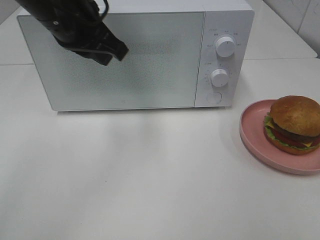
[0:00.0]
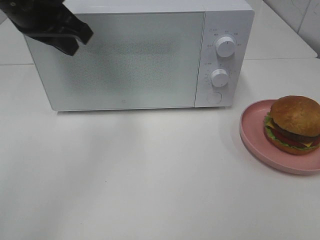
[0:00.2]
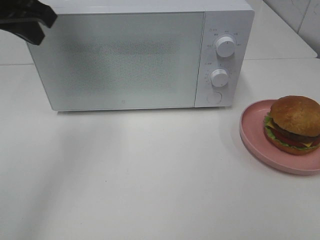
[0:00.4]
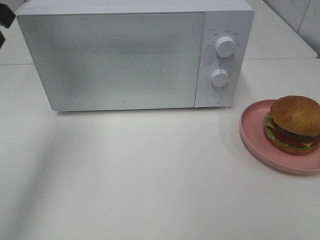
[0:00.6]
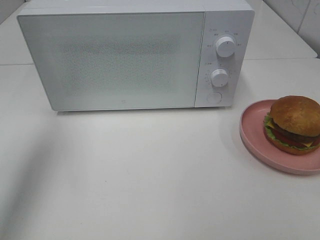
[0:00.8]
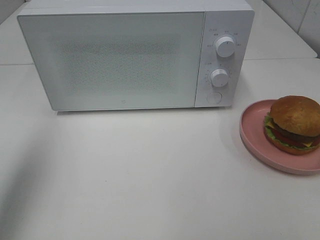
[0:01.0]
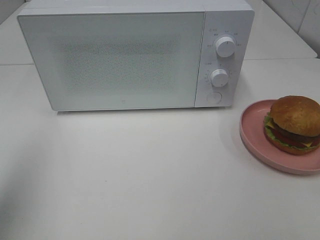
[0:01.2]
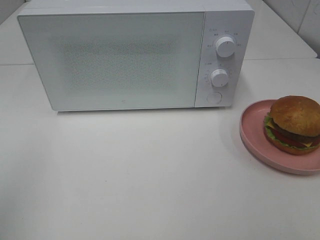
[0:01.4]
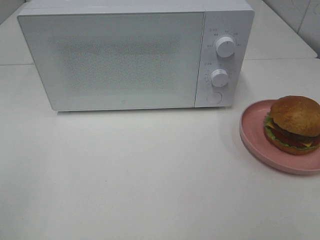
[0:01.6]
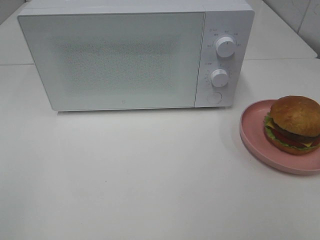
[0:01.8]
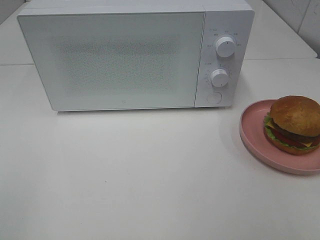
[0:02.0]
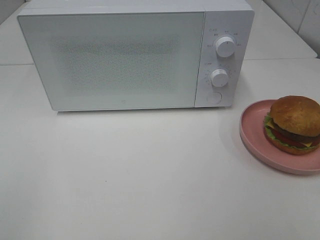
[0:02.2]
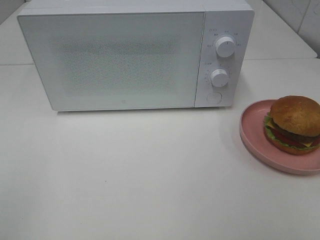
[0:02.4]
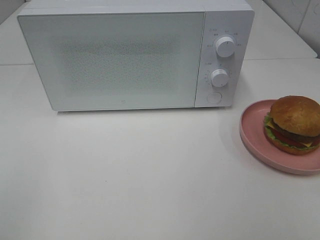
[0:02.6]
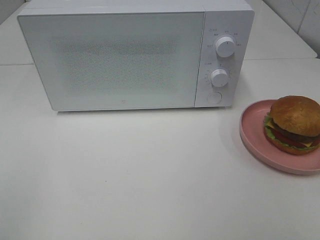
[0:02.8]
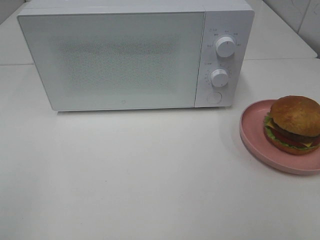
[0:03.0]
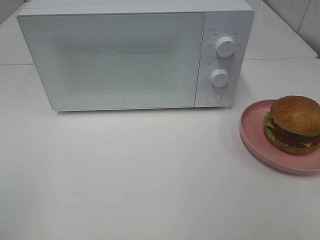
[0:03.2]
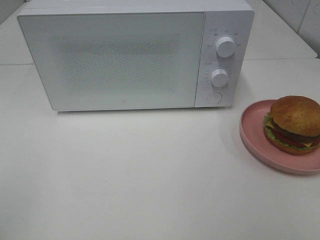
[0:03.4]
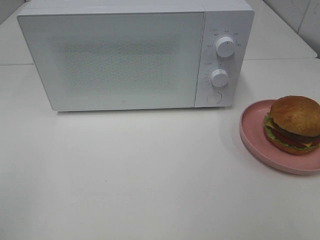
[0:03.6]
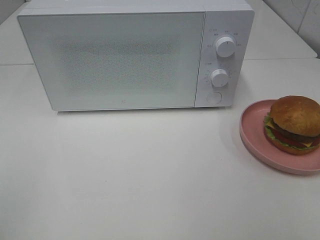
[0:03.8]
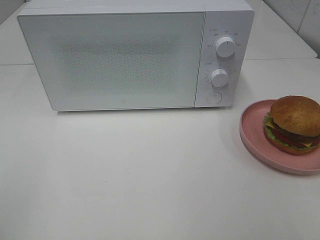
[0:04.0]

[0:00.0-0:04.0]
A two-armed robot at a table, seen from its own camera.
Task of the whole recording: Heat the burger.
0:00.0 to 0:01.4: The left gripper shifts roughly 35 cm backward and to the left.

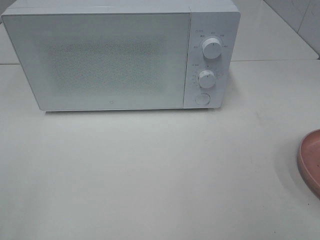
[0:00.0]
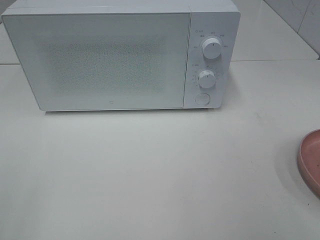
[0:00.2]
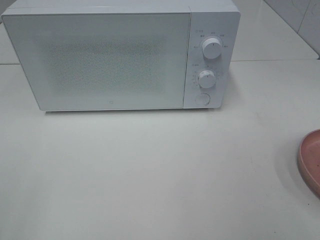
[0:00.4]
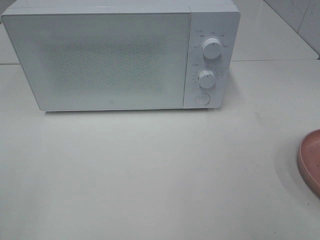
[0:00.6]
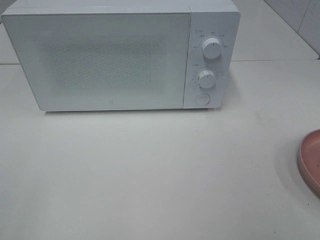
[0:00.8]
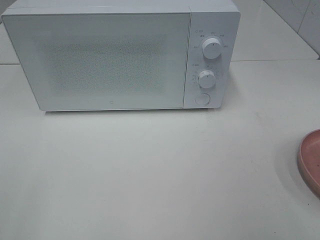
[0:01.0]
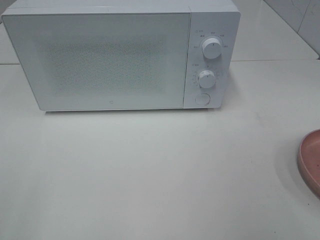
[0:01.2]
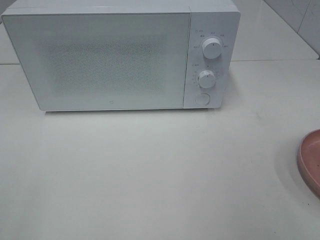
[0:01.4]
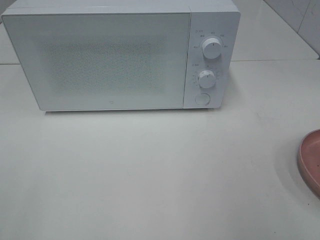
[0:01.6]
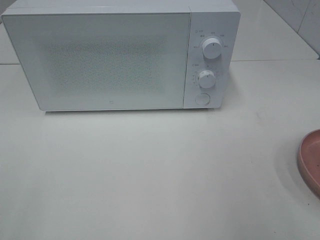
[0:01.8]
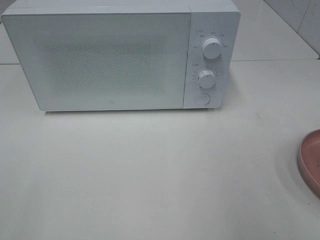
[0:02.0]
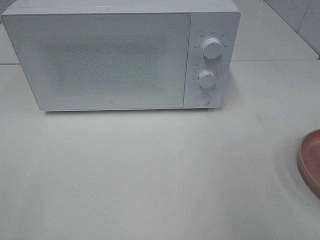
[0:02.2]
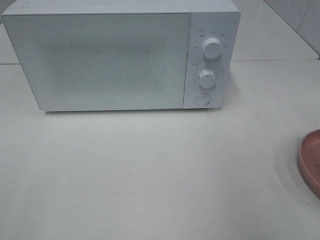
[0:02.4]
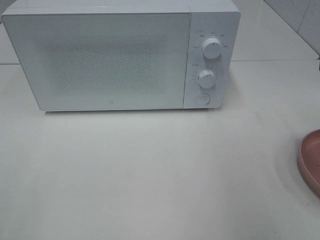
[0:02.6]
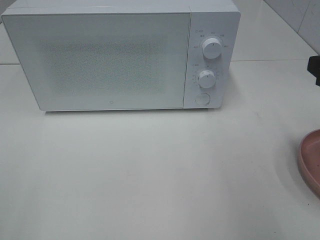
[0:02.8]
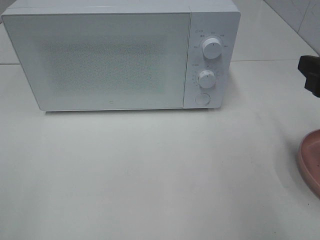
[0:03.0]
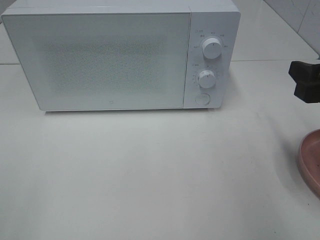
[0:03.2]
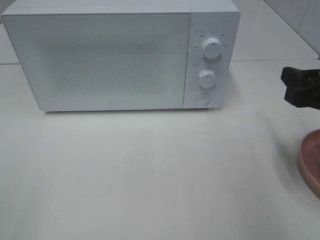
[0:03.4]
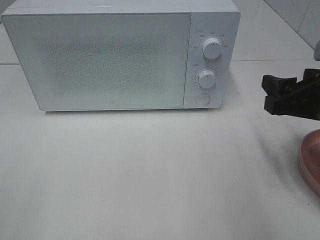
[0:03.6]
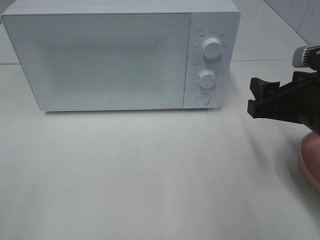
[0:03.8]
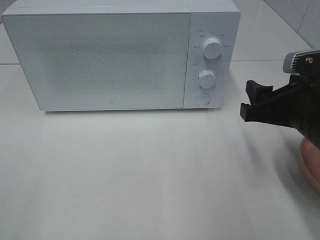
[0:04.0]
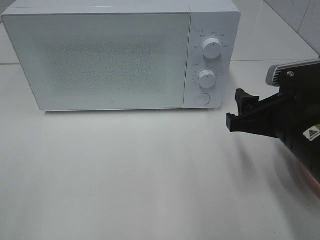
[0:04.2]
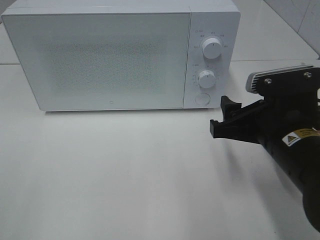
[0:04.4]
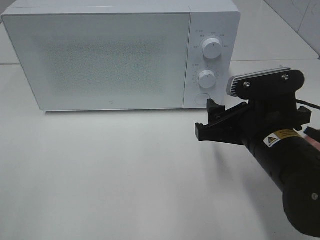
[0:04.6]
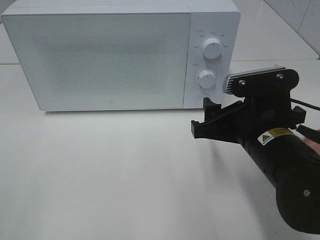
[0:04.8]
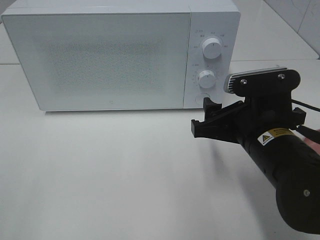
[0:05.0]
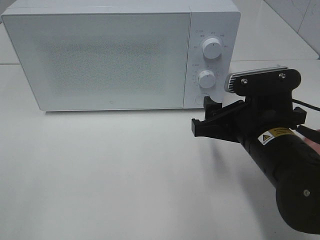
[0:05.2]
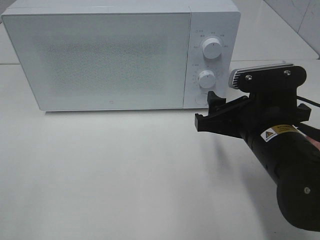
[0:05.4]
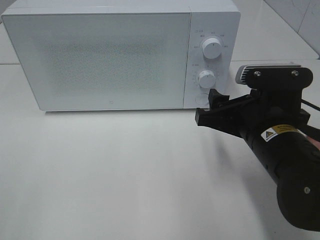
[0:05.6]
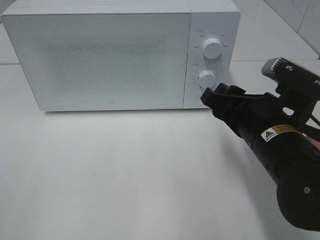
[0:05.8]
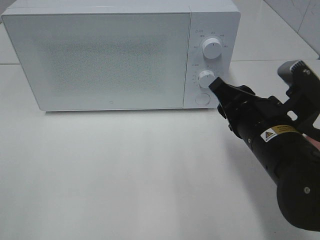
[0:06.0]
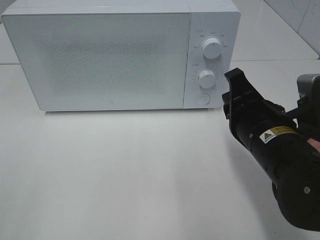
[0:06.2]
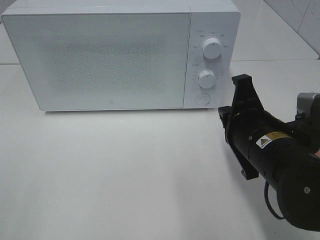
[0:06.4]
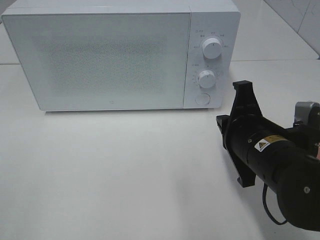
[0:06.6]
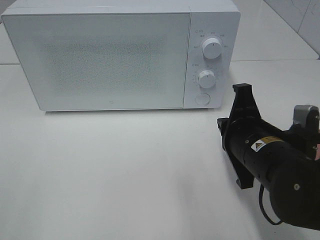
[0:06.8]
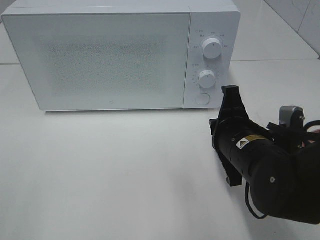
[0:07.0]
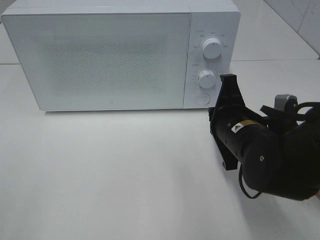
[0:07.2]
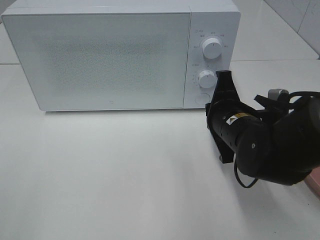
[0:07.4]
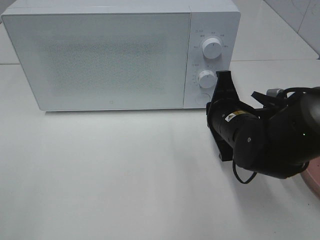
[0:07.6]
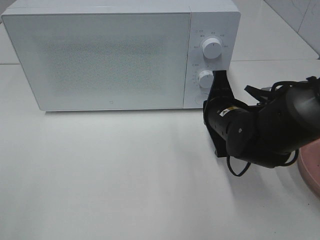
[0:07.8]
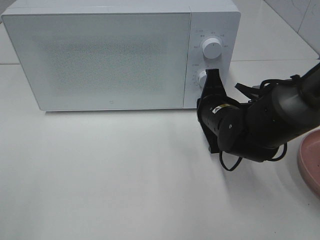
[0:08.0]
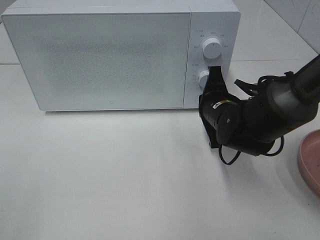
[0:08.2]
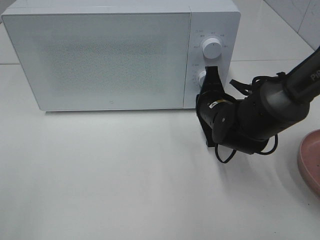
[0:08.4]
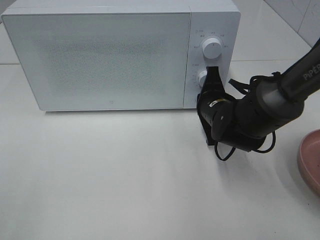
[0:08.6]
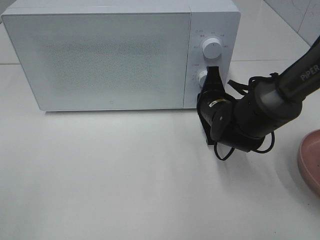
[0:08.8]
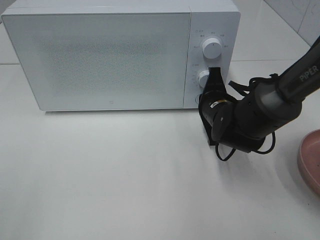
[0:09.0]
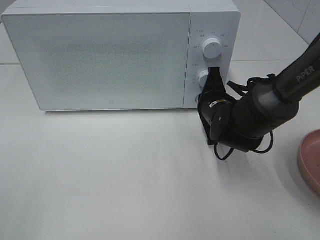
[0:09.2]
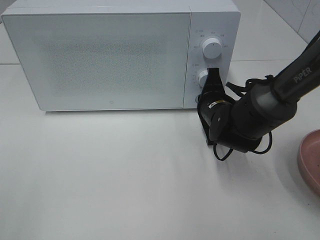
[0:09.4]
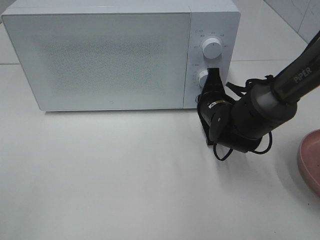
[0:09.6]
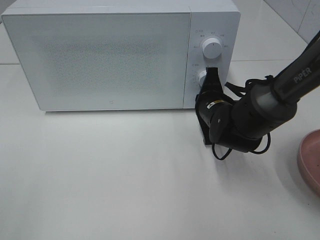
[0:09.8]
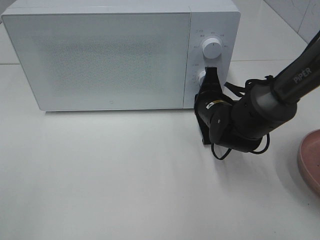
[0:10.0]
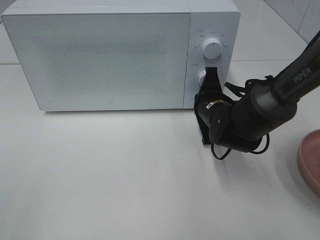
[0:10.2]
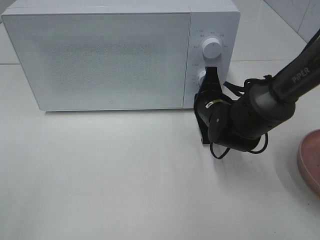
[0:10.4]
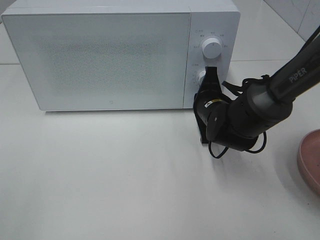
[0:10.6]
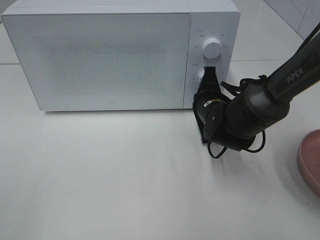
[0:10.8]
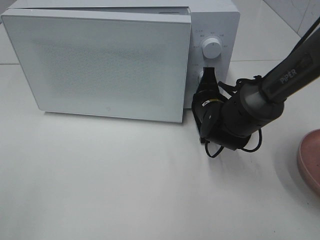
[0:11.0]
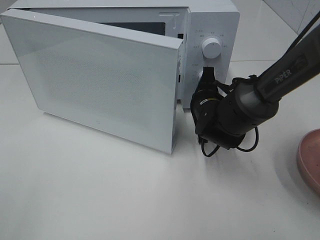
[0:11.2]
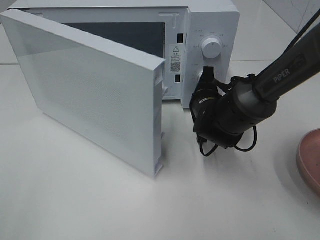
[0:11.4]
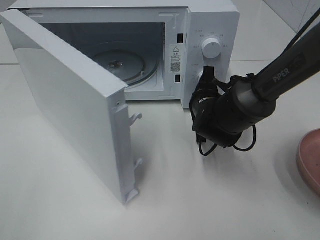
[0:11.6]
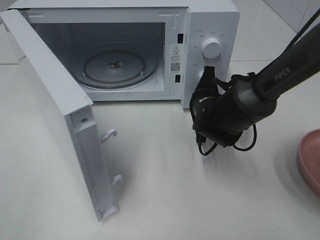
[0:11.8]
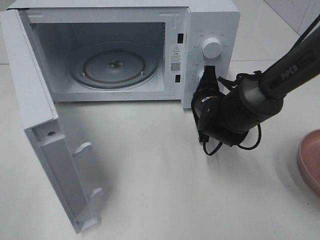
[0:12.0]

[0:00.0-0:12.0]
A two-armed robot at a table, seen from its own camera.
Task of the whole recording: Heat the burger.
0:01.6 to 0:03.0: The right gripper heads forward and downward, covering about 15 cm.
0:03.0 to 0:04.4: The right gripper travels to the left and downward by about 15 cm.
0:04.4 to 0:06.0: The right gripper closes up.
0:06.0 to 0:07.6: The right gripper heads forward, covering some 5 cm, and closes its fingers.
0:07.6 to 0:09.0: The right gripper shifts approximately 5 cm forward.
0:09.0 to 0:10.4: Neither gripper changes place.

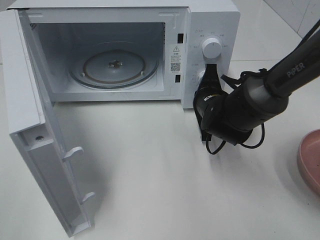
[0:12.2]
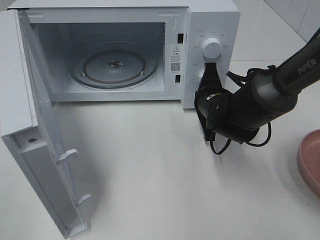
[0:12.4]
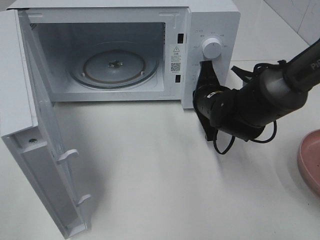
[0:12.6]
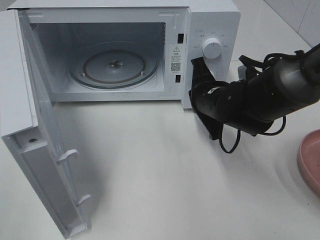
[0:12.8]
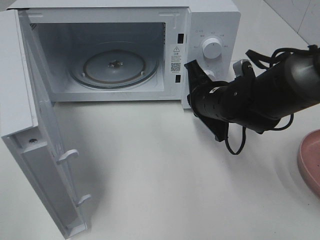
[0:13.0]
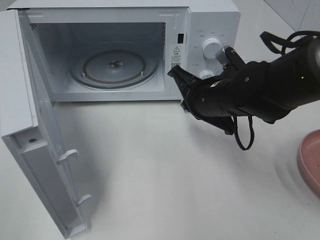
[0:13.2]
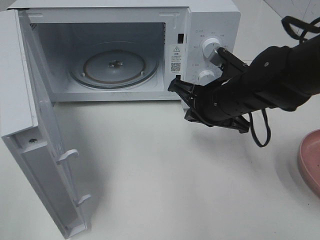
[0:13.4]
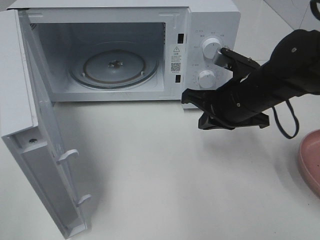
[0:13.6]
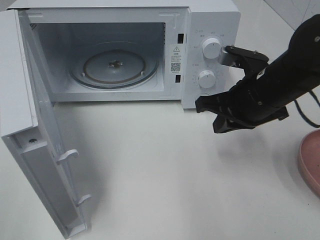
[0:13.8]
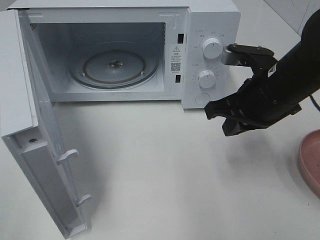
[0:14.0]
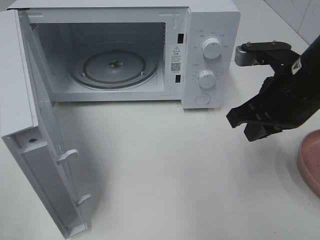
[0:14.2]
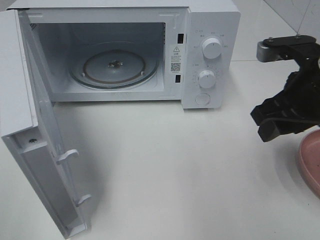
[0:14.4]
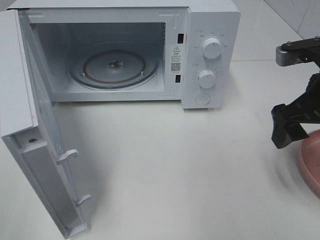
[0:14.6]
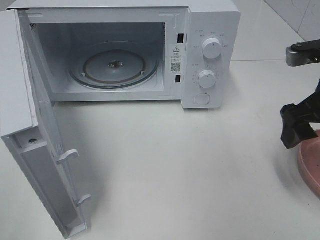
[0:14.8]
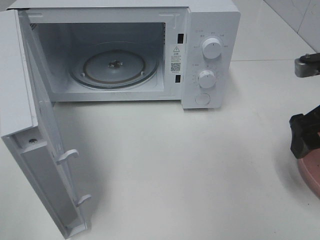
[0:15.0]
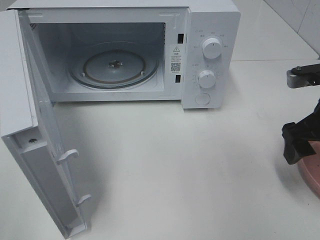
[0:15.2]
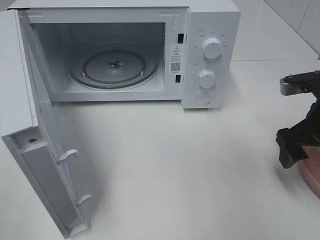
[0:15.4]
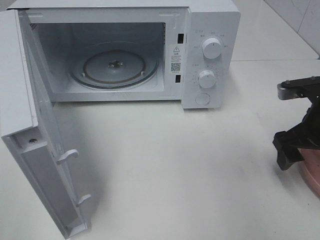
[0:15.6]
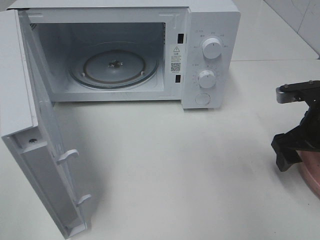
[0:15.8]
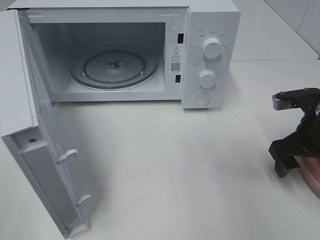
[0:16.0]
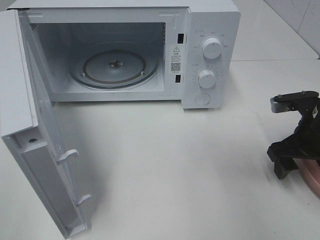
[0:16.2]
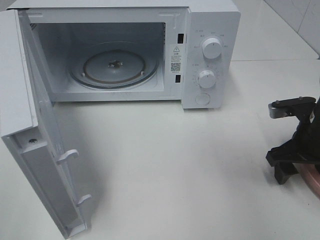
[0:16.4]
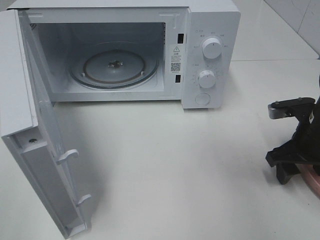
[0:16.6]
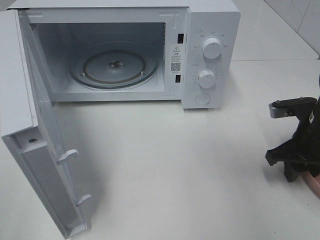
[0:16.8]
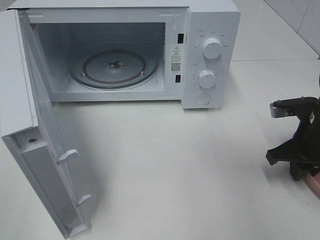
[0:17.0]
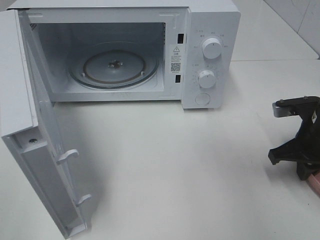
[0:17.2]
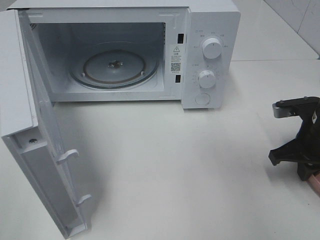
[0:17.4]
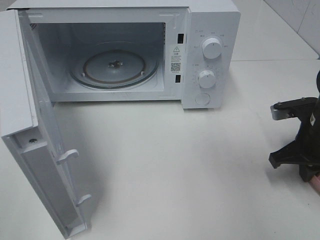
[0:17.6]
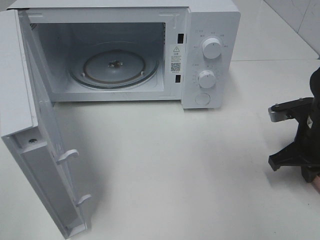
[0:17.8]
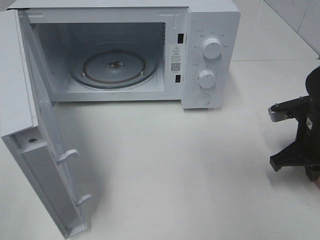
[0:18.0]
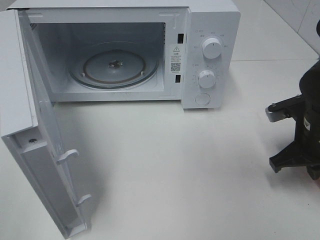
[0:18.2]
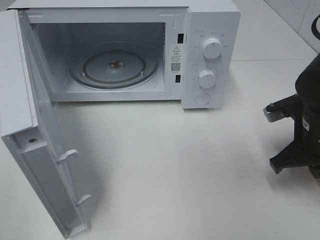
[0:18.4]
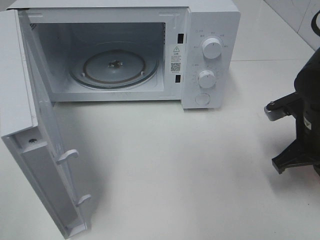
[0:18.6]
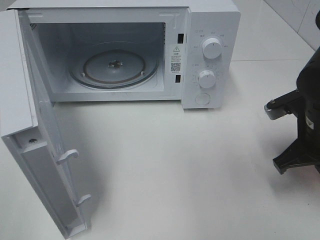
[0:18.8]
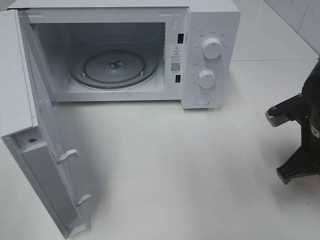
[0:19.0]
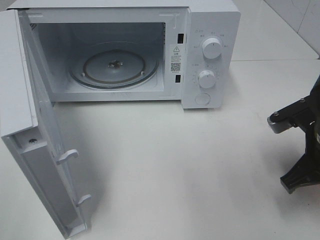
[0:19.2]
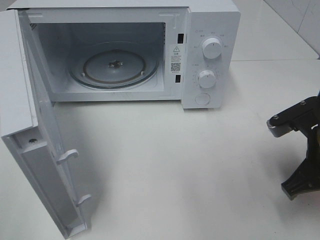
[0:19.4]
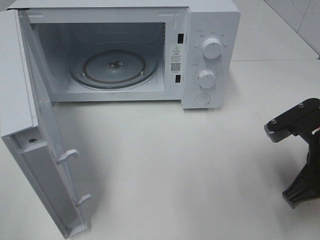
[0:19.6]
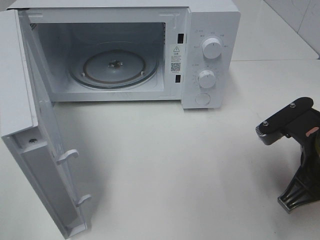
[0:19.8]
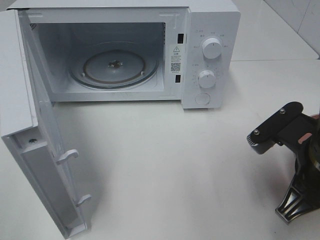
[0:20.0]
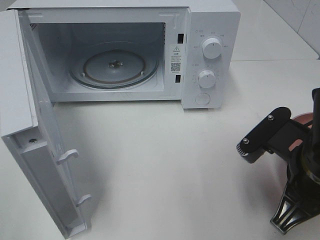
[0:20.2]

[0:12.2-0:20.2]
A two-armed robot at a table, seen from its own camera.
Task of the whole recording: Heat the burger.
Step, 0:12.8 to 0:17.4: Right hand: grab the plate with the hamburger.
0:12.2 to 0:13.8: The right gripper shifts approximately 10 cm upward and backward.
0:13.8 to 0:15.4: The right gripper shifts some 10 cm to the right, and opens up.
0:15.4 to 0:17.0: The right gripper is displaced downward by roughly 5 cm, and closes.
0:17.0 to 0:18.6: The grippers stay close to where they were, moving slightly.
0:18.6 to 0:20.2: The right gripper shifts some 10 cm backward and to the left.
